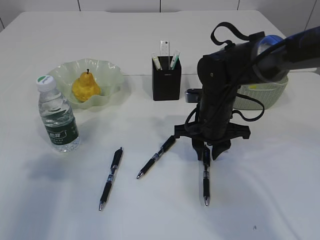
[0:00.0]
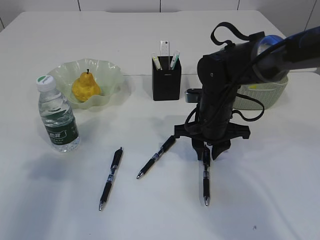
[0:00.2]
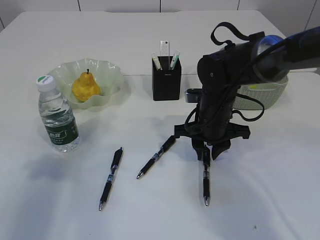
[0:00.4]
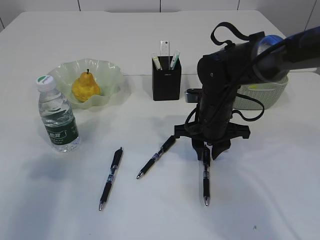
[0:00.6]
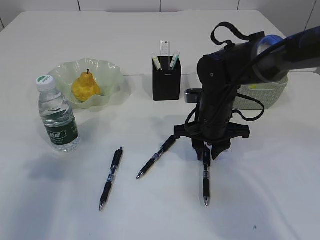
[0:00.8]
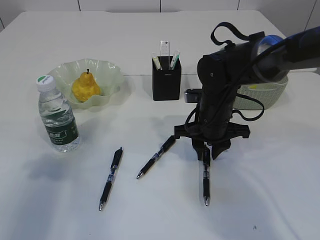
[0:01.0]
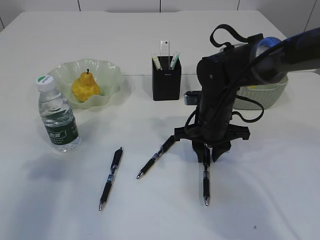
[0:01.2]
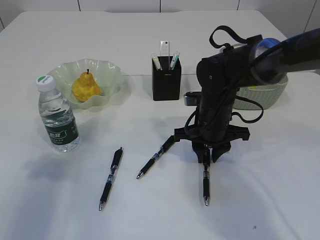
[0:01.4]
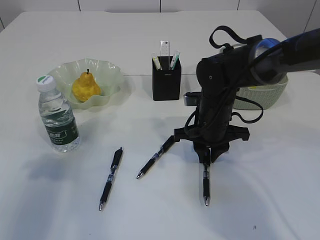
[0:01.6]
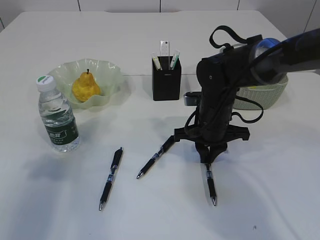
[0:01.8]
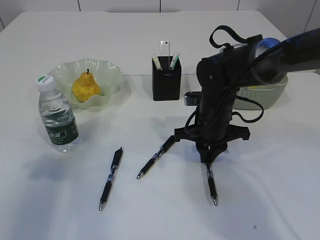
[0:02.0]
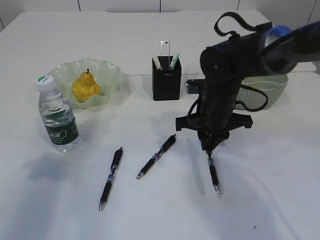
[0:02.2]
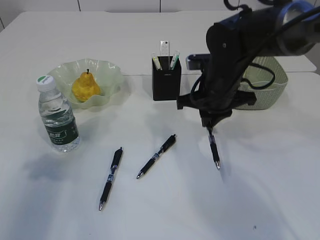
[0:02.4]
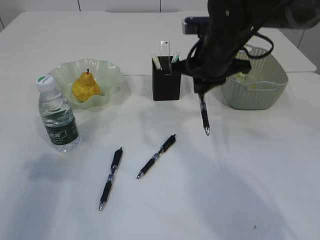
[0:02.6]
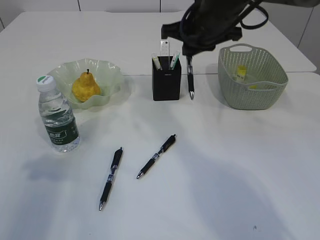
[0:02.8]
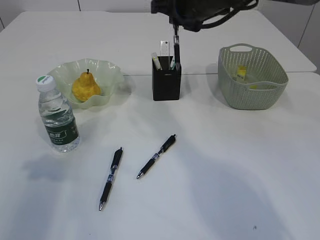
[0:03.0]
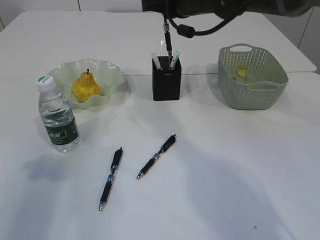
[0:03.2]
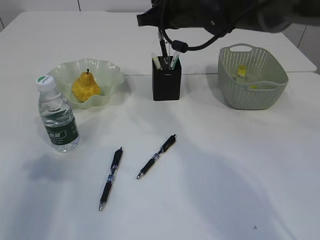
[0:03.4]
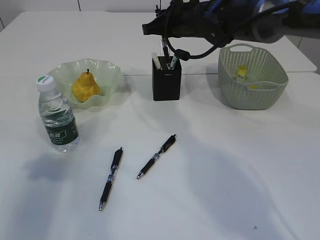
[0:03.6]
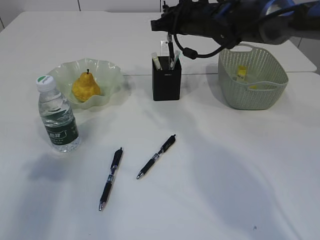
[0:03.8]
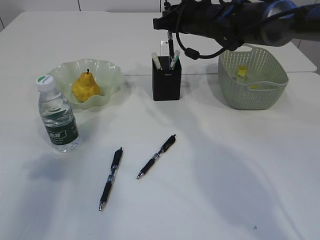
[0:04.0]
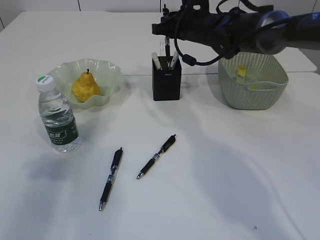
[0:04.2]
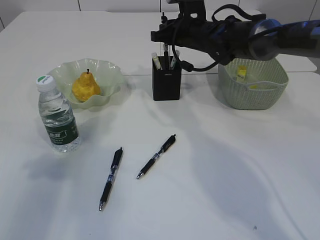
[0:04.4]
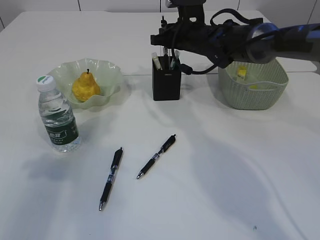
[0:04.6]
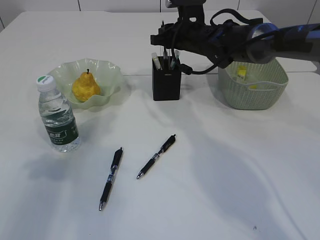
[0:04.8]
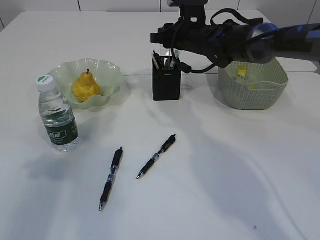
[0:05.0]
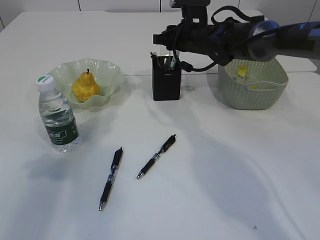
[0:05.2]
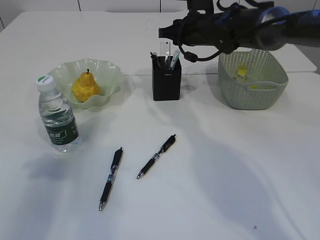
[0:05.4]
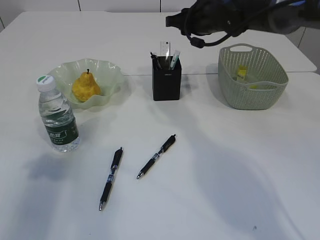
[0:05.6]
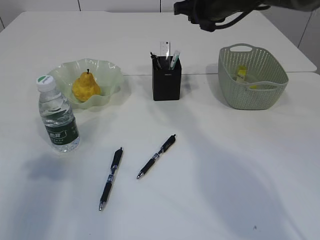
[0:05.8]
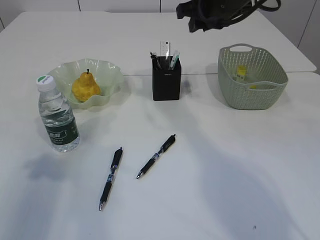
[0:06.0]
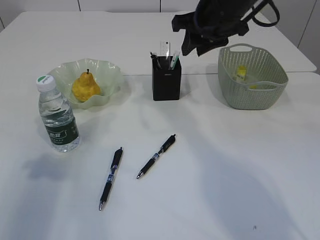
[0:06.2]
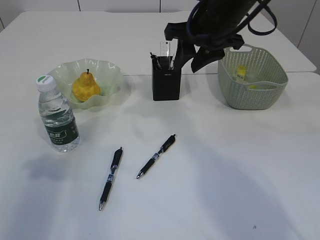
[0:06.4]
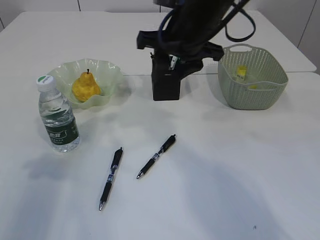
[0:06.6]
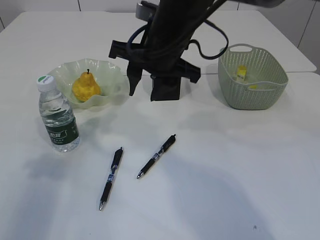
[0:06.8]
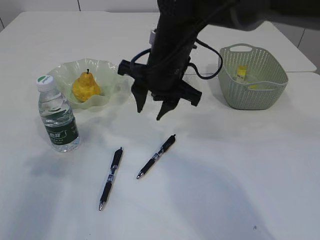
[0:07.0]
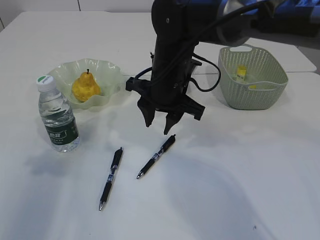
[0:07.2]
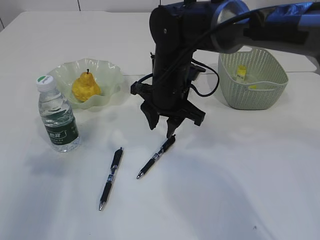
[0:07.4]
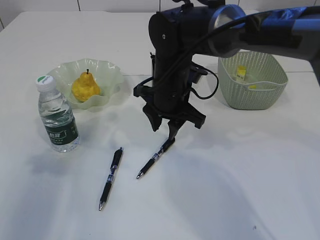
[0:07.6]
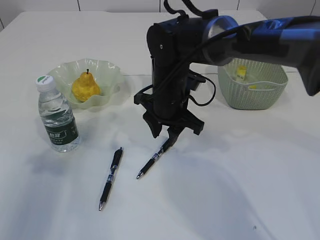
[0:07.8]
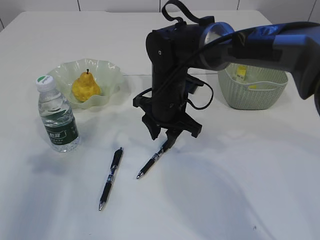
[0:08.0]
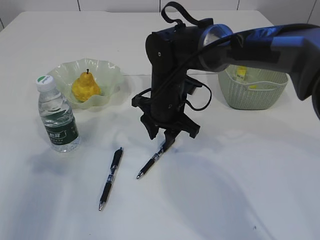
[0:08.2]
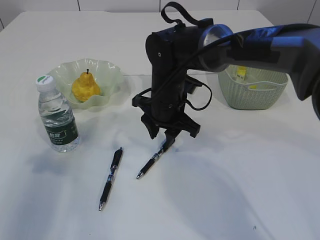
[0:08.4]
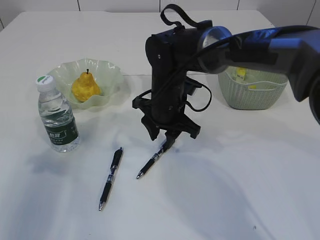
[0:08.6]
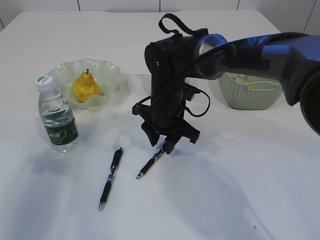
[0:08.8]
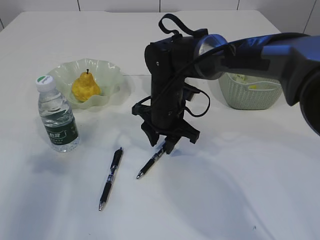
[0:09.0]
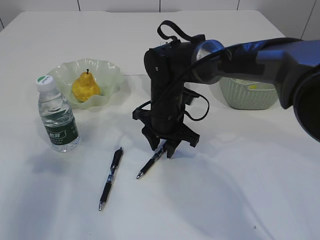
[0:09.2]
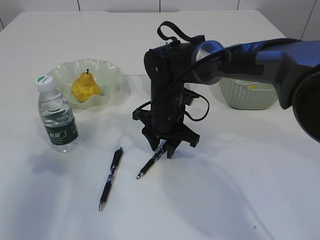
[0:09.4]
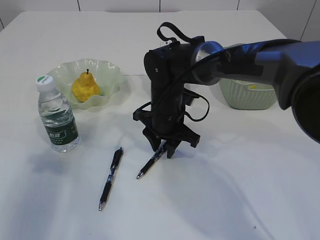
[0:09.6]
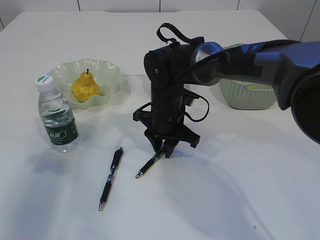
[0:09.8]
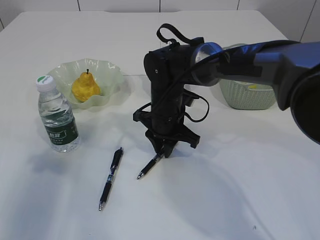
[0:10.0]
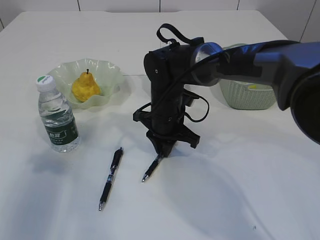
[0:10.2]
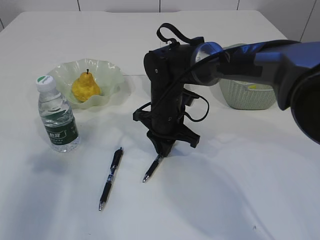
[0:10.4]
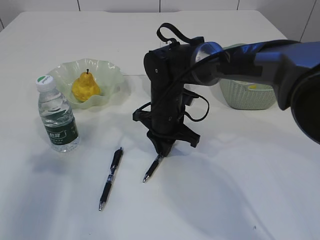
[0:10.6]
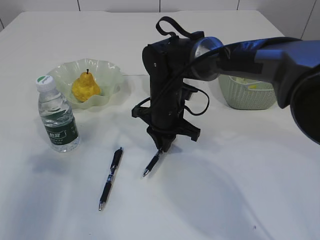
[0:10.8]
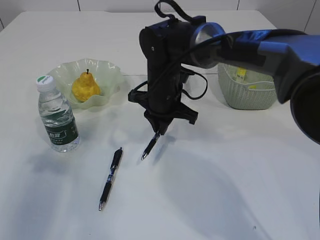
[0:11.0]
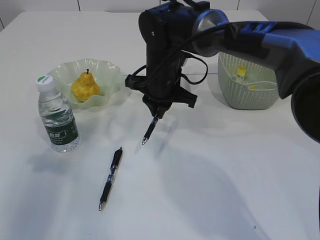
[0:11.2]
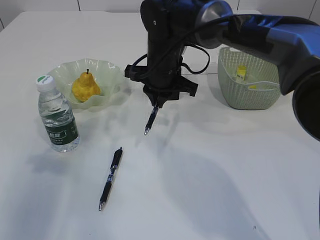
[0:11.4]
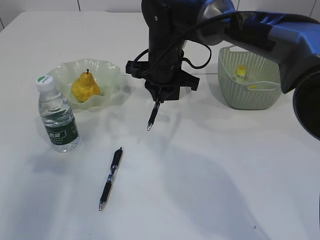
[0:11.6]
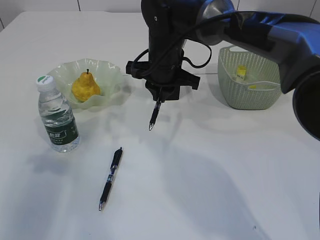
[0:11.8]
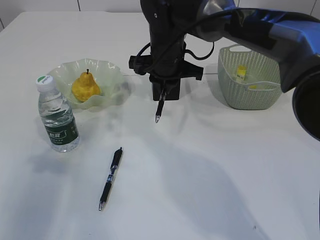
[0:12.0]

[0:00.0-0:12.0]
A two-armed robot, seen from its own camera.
Step, 0:00.0 to 0:02.4: Pick up the pen with right arm.
Step, 0:02.6 to 0:06.8: Place the pen into the pen holder.
Step, 0:07.0 to 0:11.2: Pick up the pen with right arm.
0:00.0 to 0:01.6: Both grippers stay put.
0:01.6 to 0:03.0: The right gripper shifts approximately 20 cm upward.
0:03.0 to 0:04.4: The right gripper moves downward and forward, some 10 cm.
0:04.4 to 0:06.0: The right gripper shifts approximately 10 cm upward and backward, and opens up.
0:06.0 to 0:07.6: The right gripper heads downward, to the left and backward, covering roughly 15 cm.
0:07.6 to 0:09.0: The grippers stay close to where they were, moving slightly.
0:09.0 to 0:10.4: The right gripper closes its fingers.
0:10.4 to 0:12.0: The right gripper travels upward by about 10 cm.

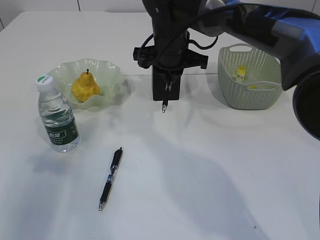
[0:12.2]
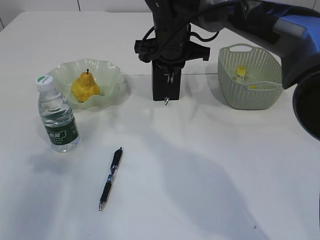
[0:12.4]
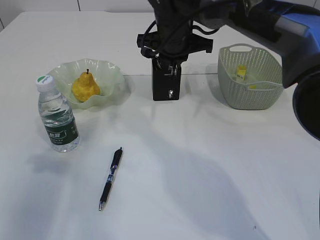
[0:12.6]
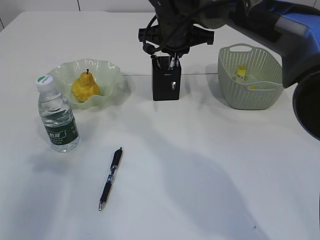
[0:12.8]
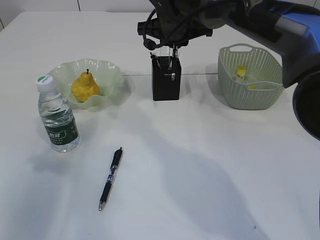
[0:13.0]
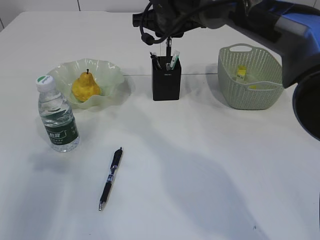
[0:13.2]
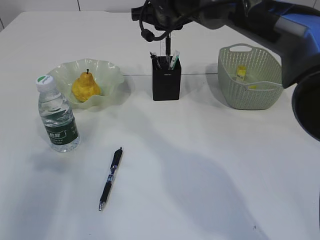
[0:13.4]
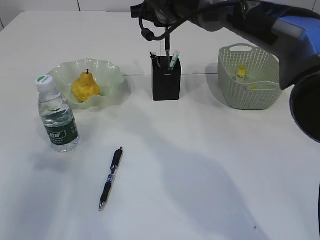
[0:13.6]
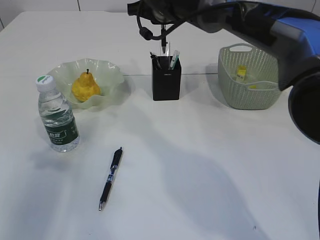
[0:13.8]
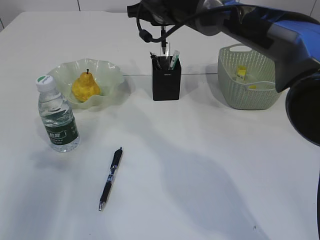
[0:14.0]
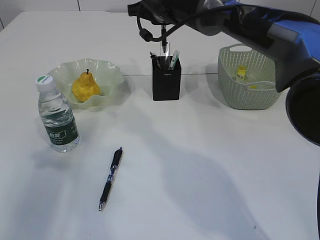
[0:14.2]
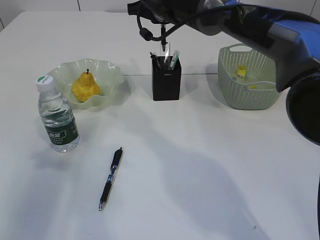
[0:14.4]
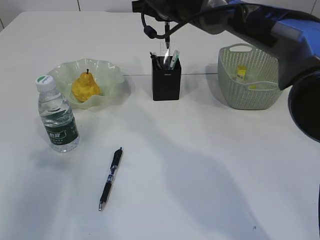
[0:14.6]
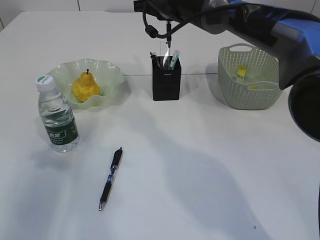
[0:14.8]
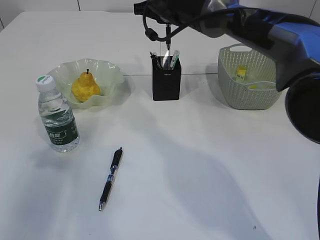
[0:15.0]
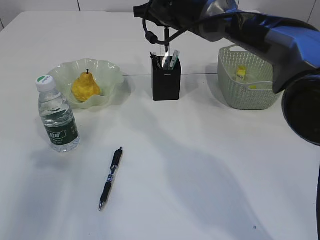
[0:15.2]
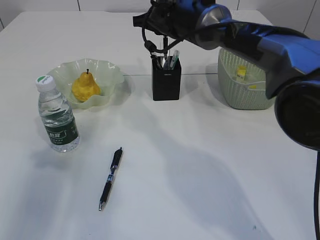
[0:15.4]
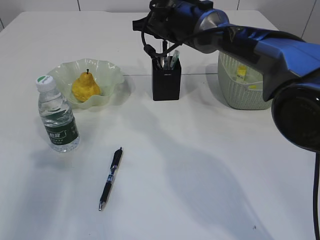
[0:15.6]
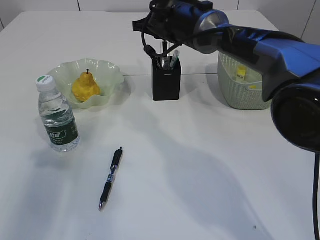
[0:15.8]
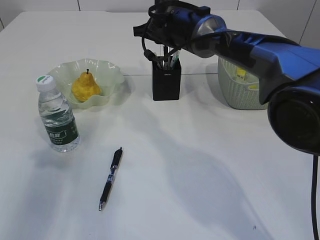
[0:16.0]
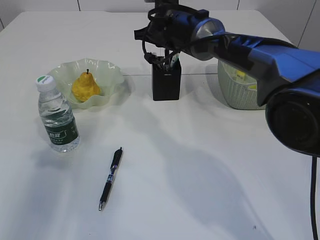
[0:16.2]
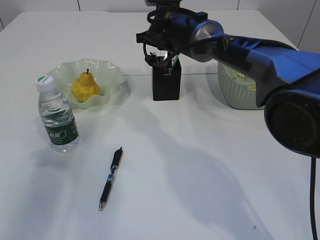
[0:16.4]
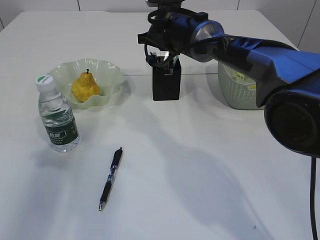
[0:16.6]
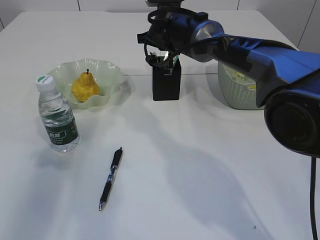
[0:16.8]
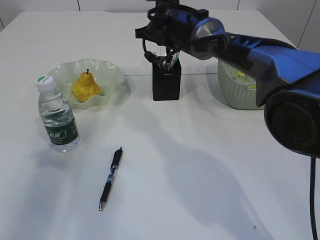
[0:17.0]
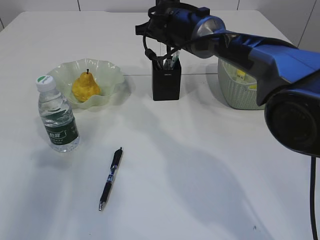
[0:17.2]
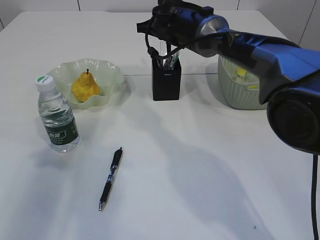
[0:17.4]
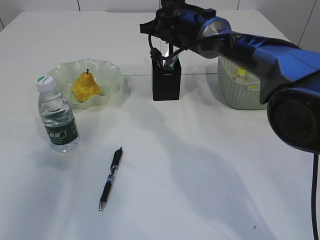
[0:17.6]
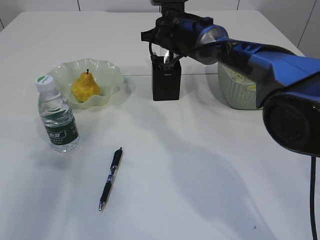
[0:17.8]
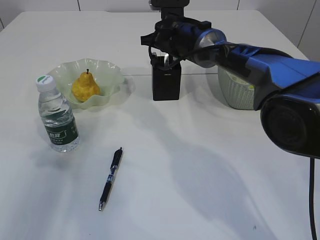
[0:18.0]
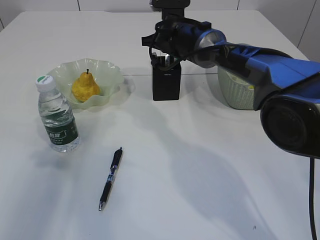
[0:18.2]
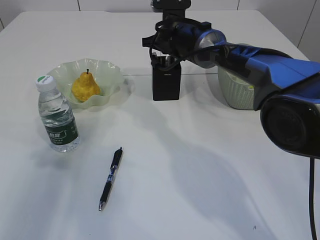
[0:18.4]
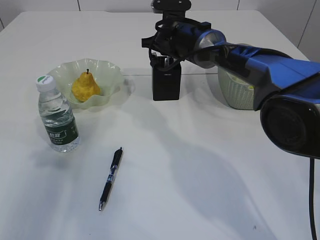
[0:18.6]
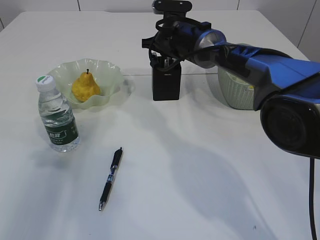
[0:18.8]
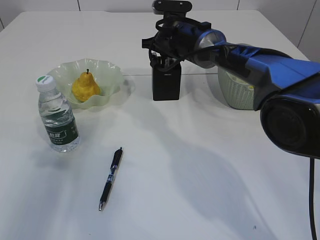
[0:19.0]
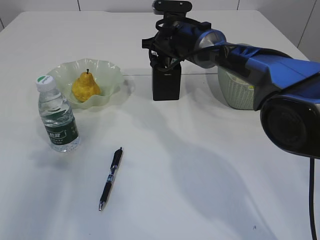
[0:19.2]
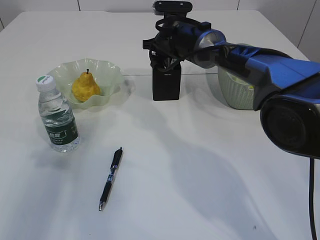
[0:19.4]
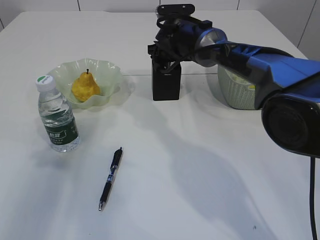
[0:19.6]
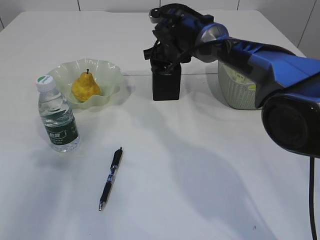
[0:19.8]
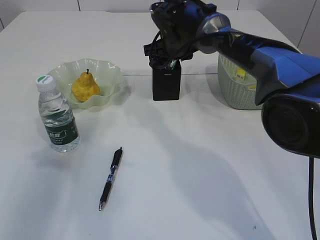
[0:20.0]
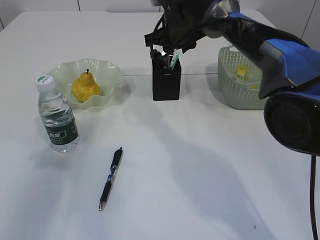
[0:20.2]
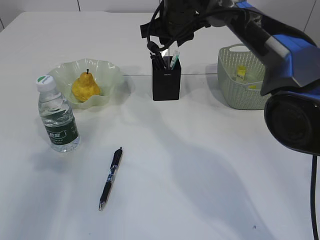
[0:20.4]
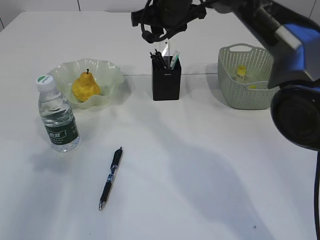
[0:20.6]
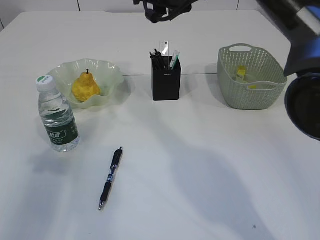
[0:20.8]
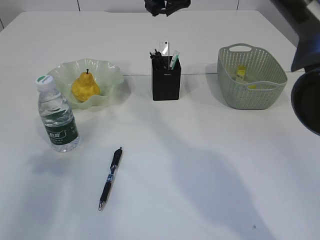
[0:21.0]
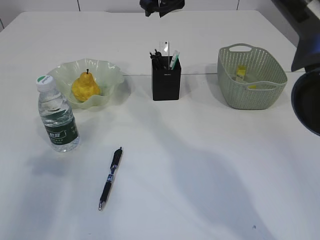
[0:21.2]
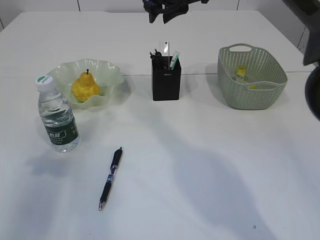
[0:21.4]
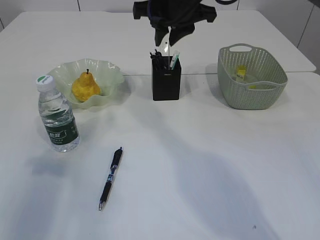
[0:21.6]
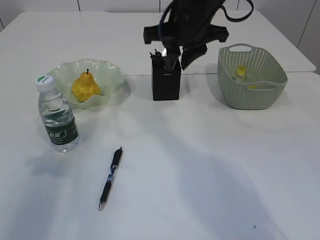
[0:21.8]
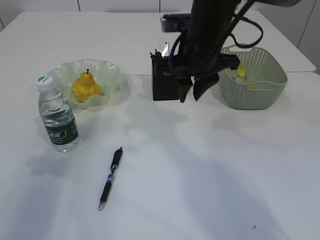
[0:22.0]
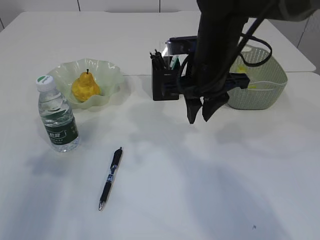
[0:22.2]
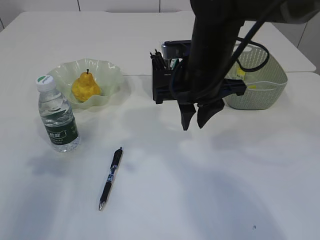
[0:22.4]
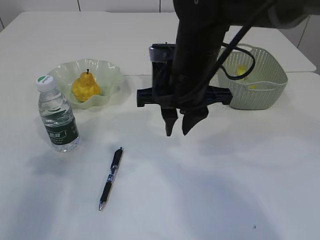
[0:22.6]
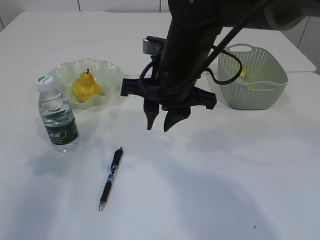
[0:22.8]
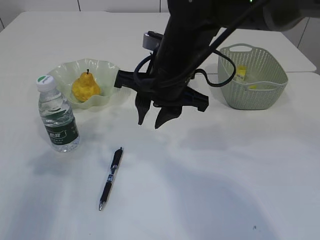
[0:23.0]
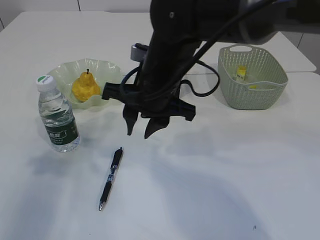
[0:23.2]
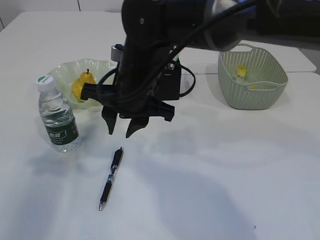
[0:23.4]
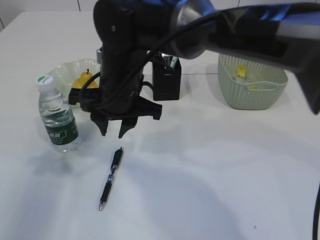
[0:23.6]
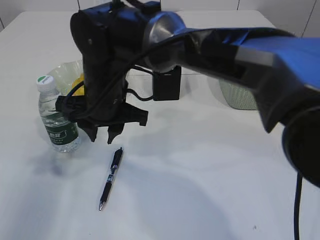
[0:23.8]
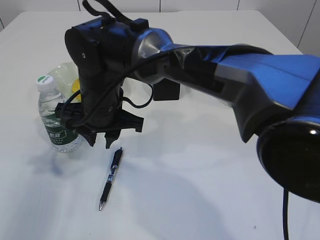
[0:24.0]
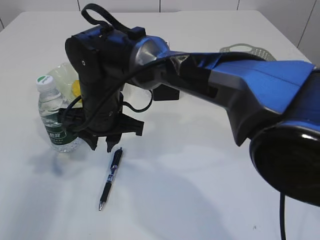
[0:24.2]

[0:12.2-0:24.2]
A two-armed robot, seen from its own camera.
Step, 0:12.2 to 0:20.4: Place the pen into the pen holder.
0:12.2 to 0:13.8: The right gripper changes place by roughly 5 cm.
0:13.8 to 0:15.2: The grippers move only a little.
0:15.2 to 0:16.6: The right gripper heads downward, covering approximately 5 cm.
0:16.6 to 0:18.2: The grippers stay close to where they were, moving slightly.
0:18.2 to 0:19.8: The right gripper opens its fingers.
0:19.8 to 0:21.2: The right gripper shifts approximately 15 cm upward.
0:21.2 to 0:22.6: The right gripper travels backward and downward by roughly 15 cm.
0:22.6 to 0:24.2: The right gripper travels to the left and downward by approximately 15 cm.
